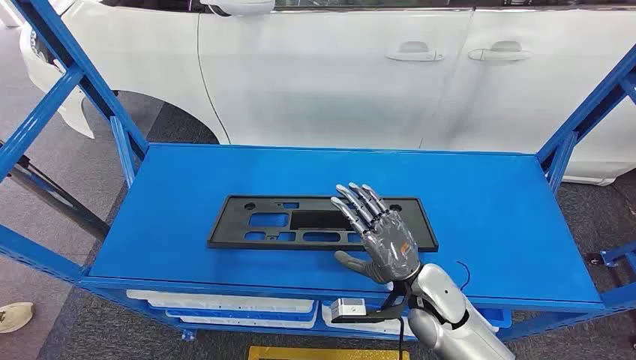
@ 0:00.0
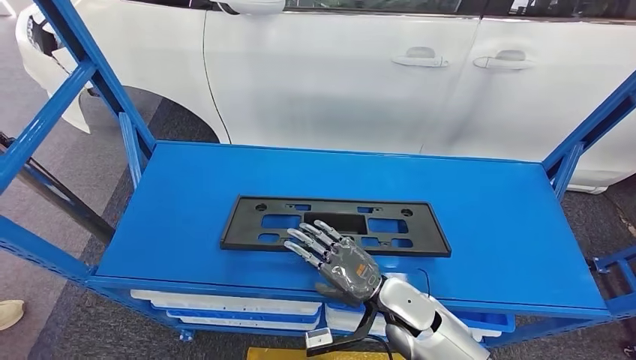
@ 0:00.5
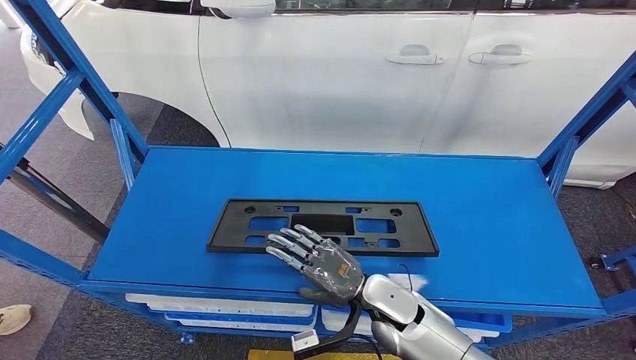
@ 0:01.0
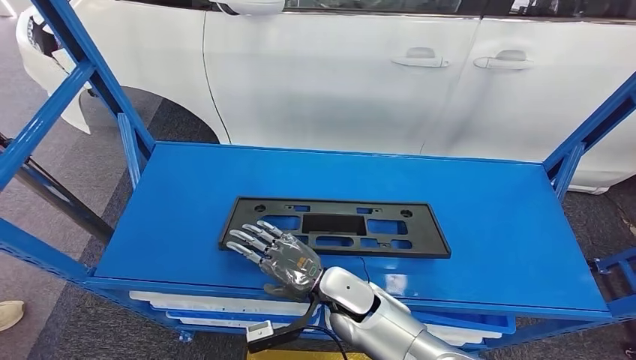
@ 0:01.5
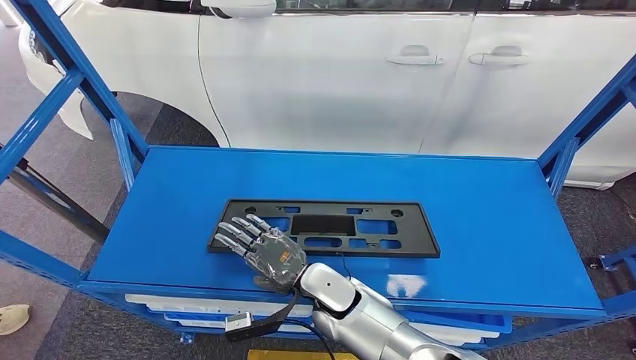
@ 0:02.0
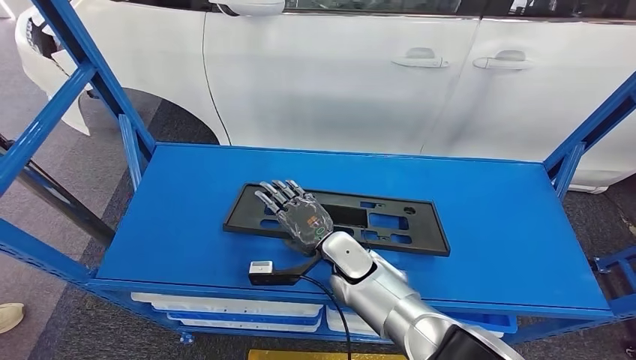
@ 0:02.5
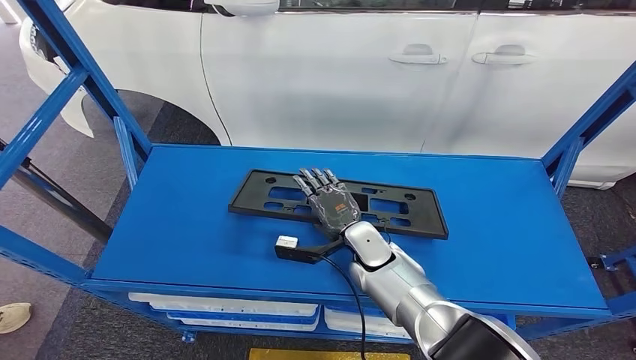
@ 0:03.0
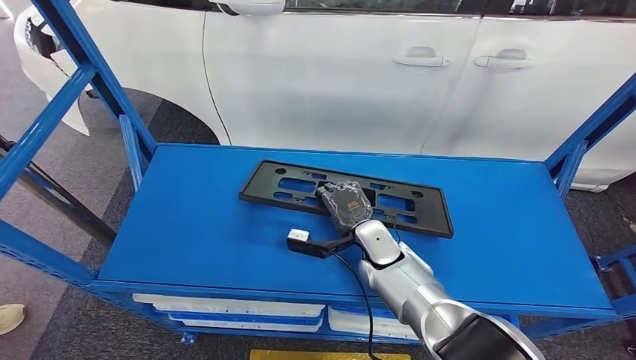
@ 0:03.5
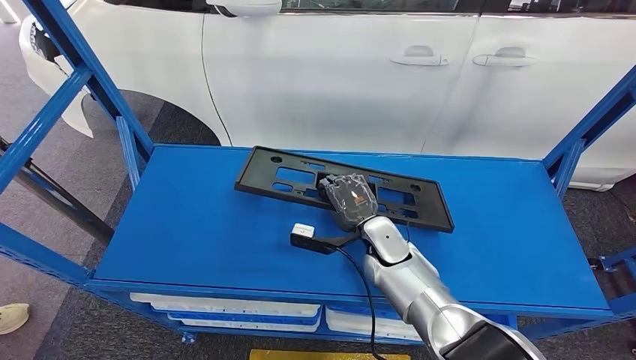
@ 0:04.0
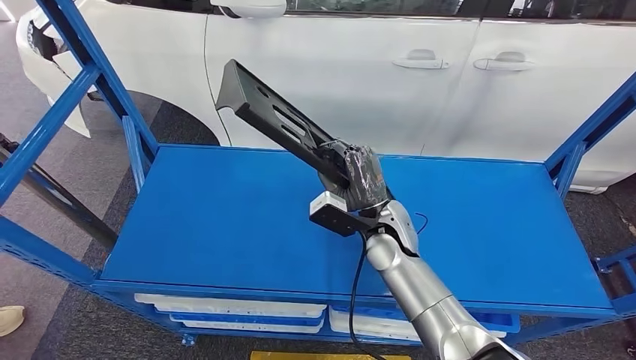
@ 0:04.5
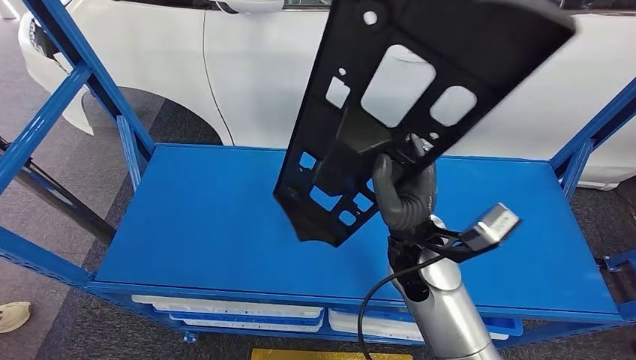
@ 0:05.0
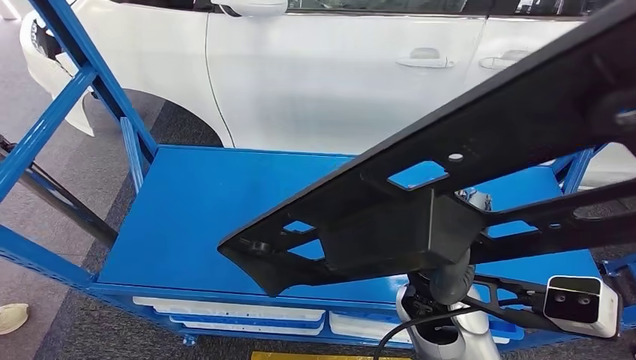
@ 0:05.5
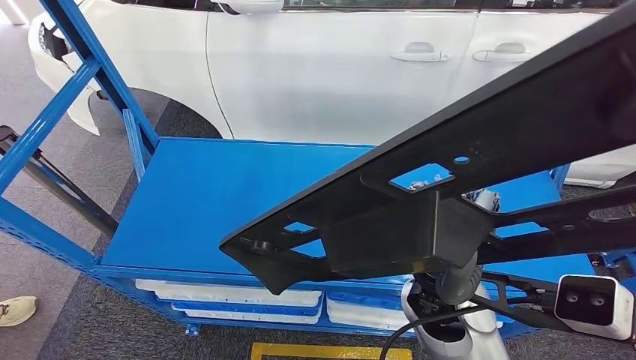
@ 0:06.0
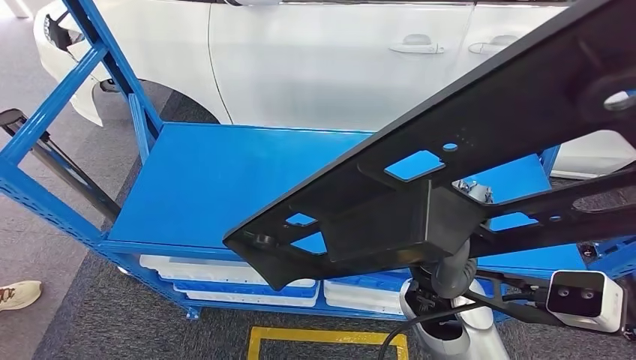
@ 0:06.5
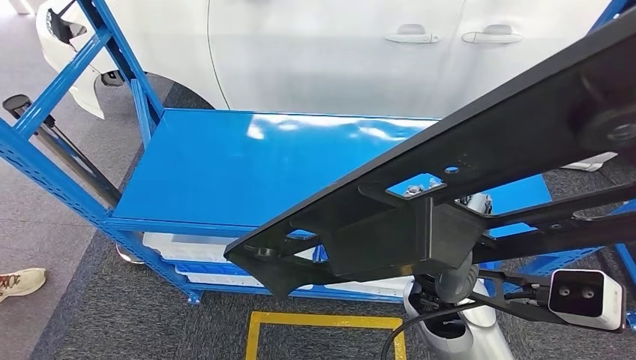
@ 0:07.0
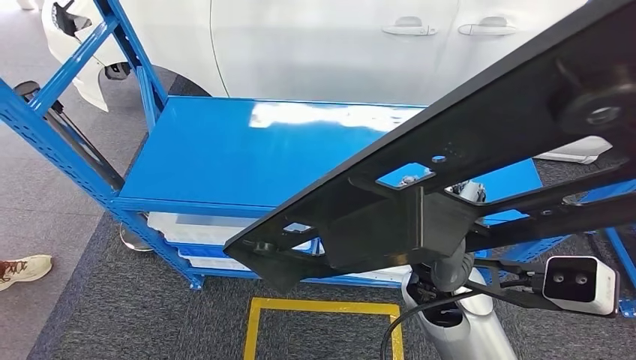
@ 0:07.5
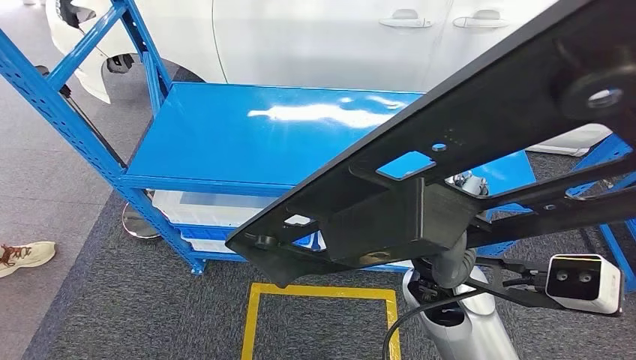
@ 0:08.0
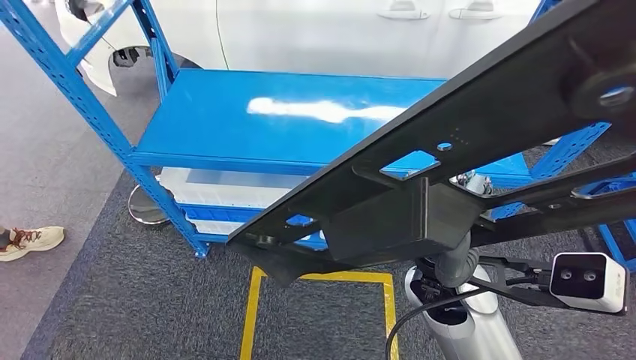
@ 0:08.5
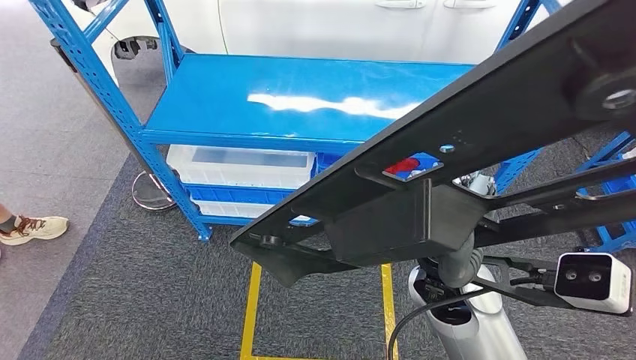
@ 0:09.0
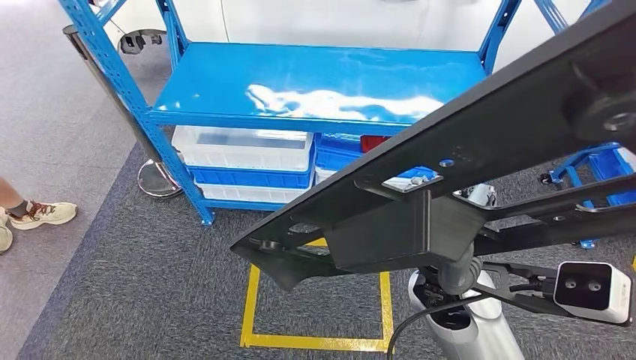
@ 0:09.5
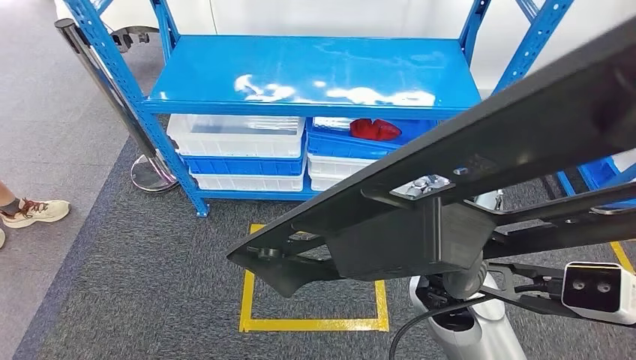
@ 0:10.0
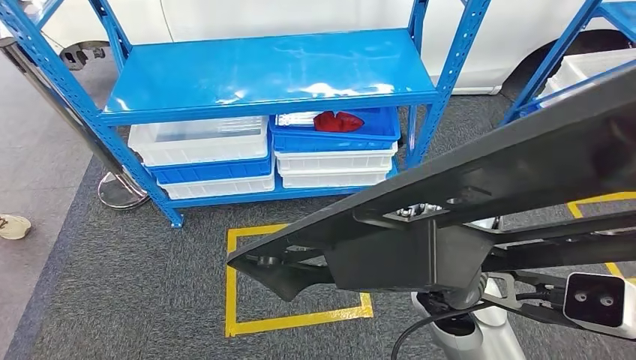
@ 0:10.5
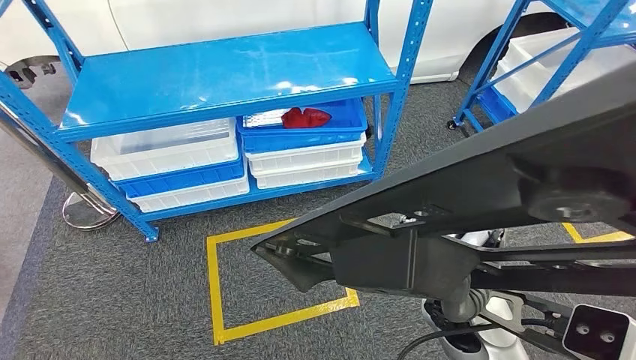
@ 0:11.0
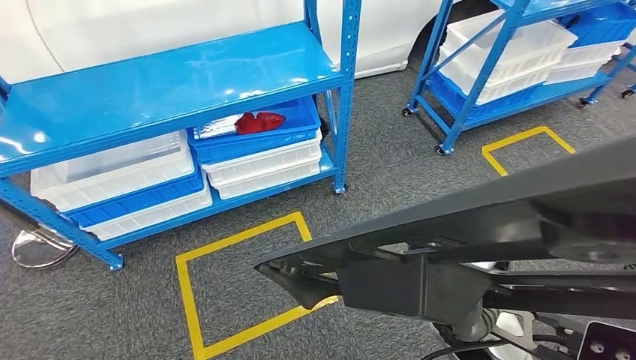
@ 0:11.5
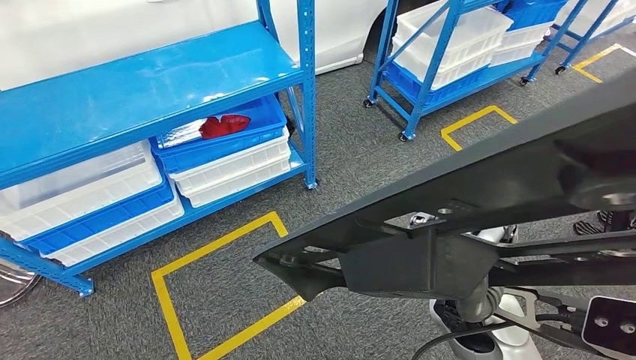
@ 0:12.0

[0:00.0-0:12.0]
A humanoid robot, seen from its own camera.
Step, 0:00.0 to 0:05.0: Pick up the small component from the shelf.

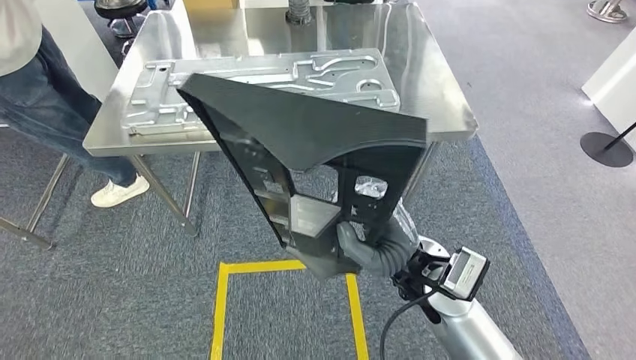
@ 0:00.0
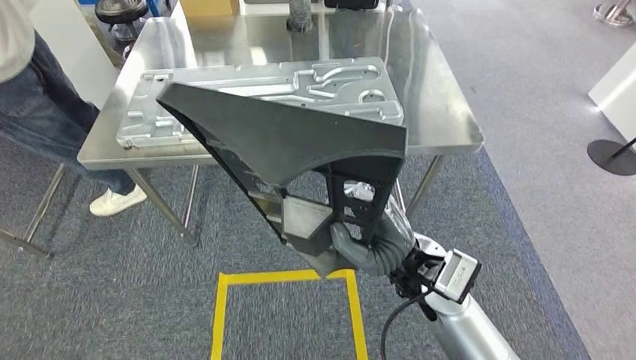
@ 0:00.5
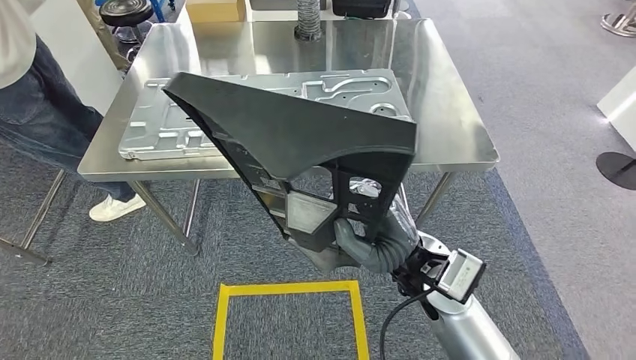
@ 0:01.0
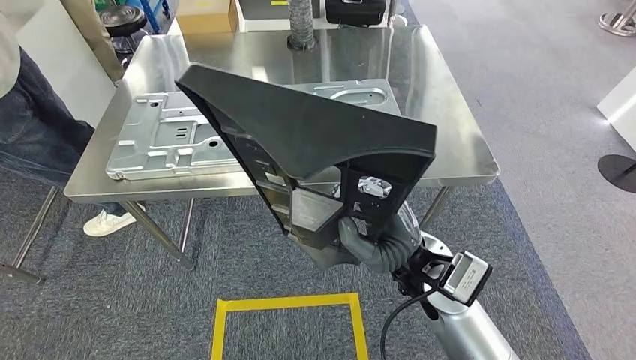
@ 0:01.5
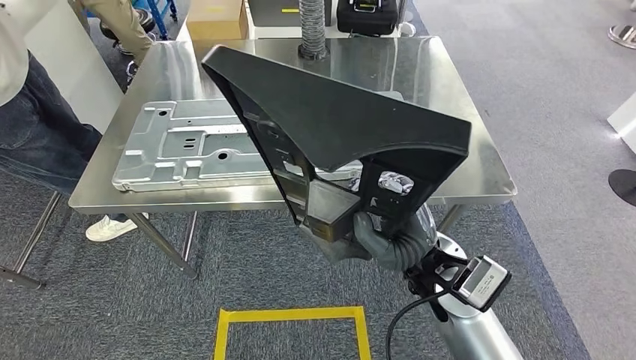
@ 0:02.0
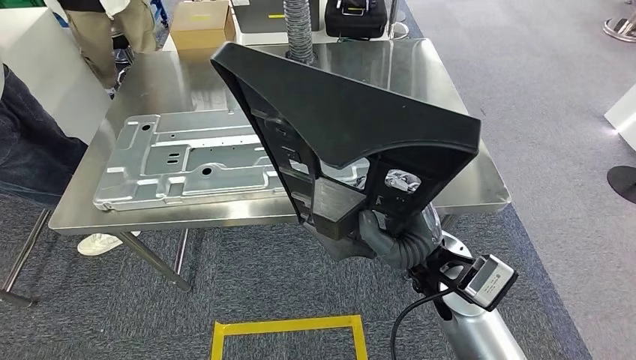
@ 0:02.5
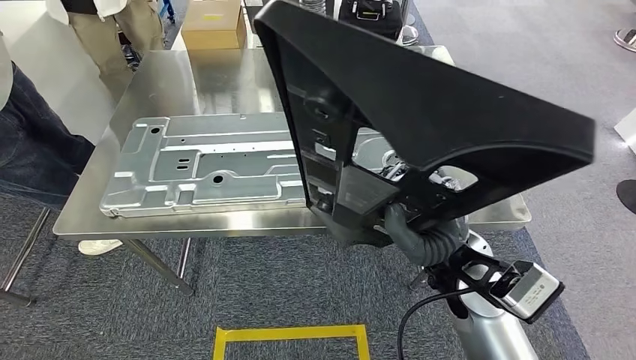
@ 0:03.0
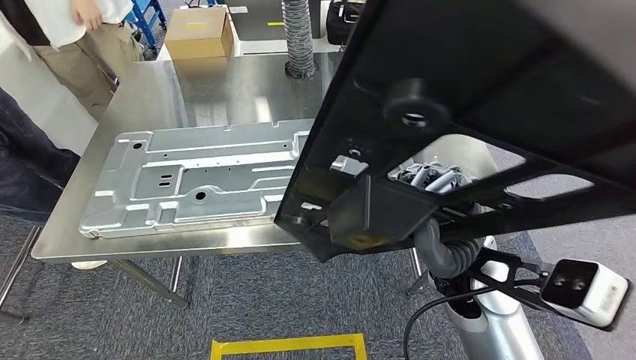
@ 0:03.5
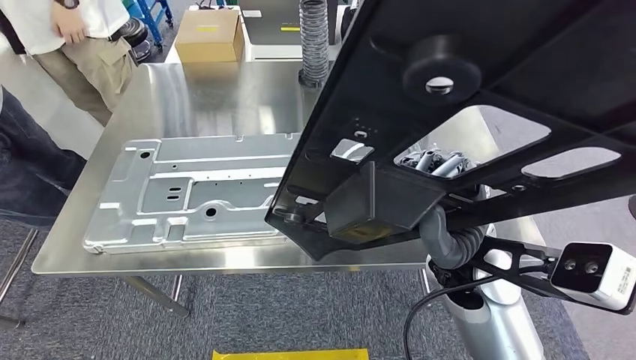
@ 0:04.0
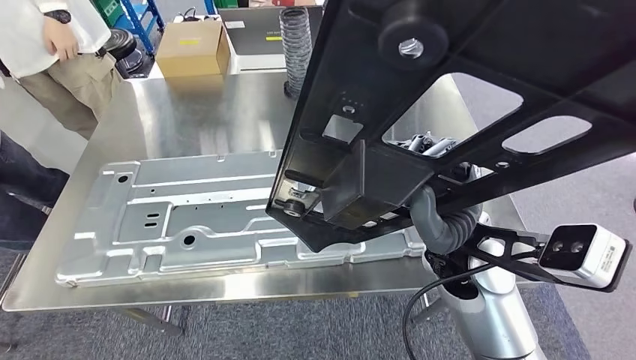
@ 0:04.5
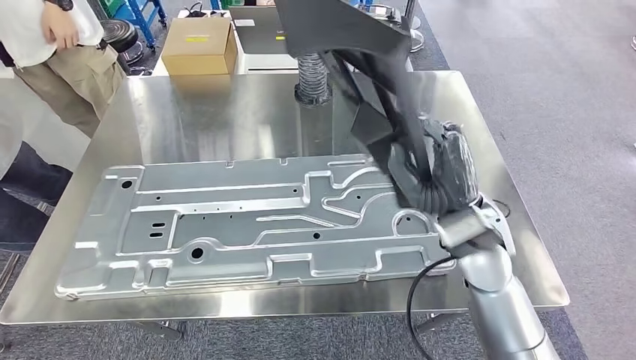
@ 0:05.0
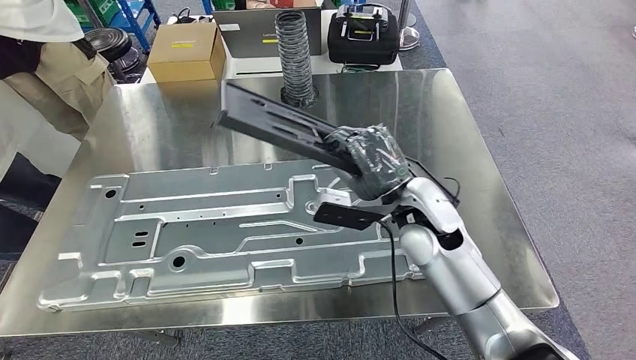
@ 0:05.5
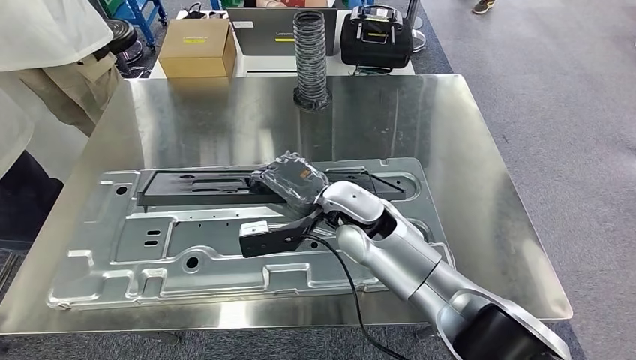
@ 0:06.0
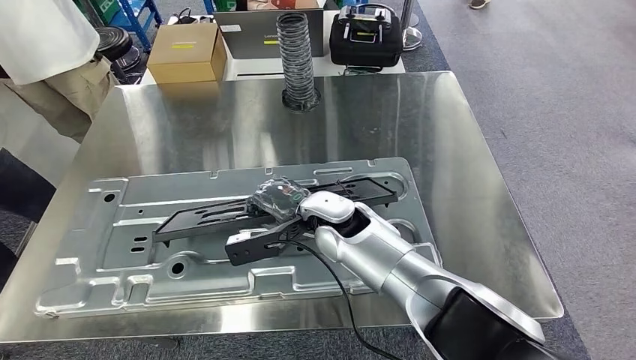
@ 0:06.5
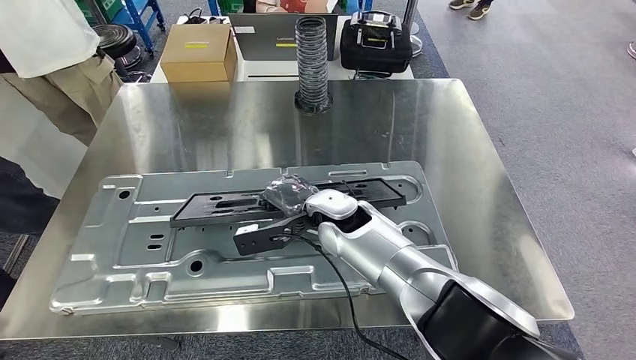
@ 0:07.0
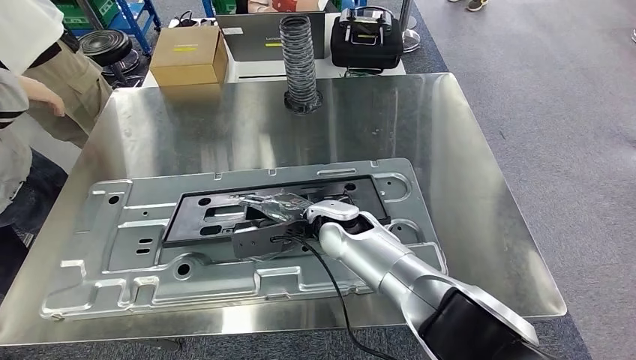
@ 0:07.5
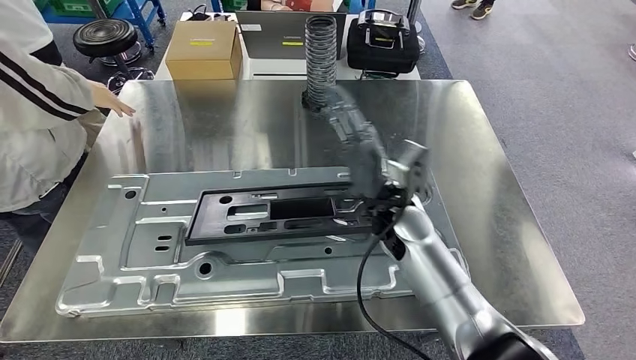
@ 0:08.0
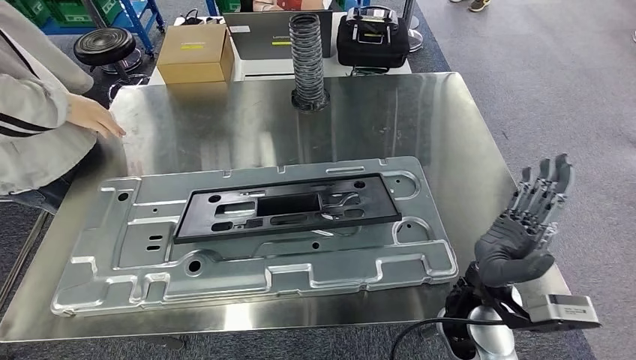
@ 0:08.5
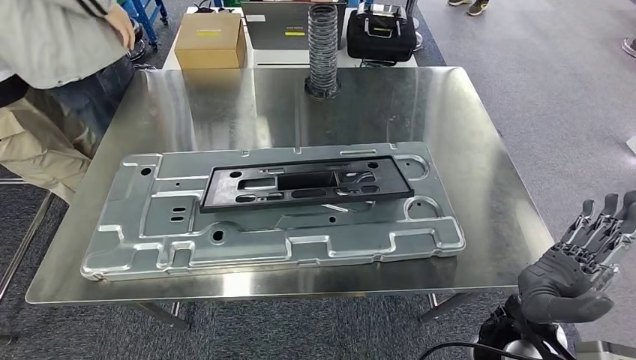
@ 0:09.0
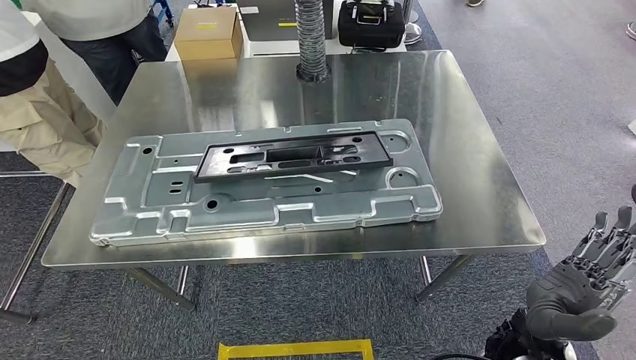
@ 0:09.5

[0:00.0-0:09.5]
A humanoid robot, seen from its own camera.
Step, 0:00.0 to 0:04.5: Move the small component to the workbench.
Step, 0:05.0 to 0:08.0: Insert the small component into the corresponding slot on the workbench.
